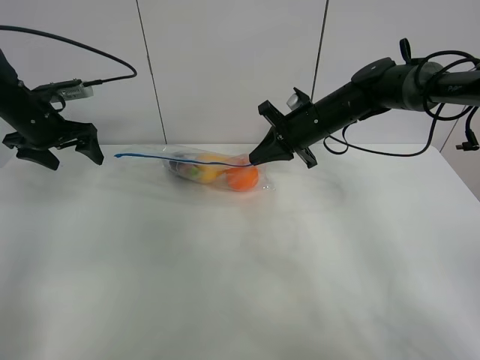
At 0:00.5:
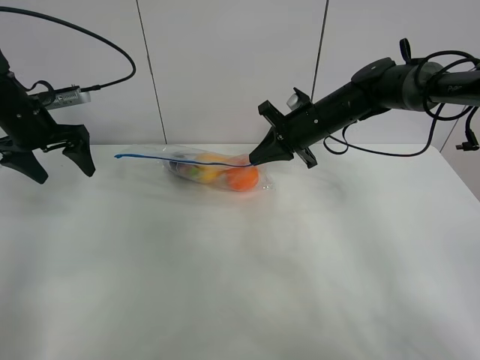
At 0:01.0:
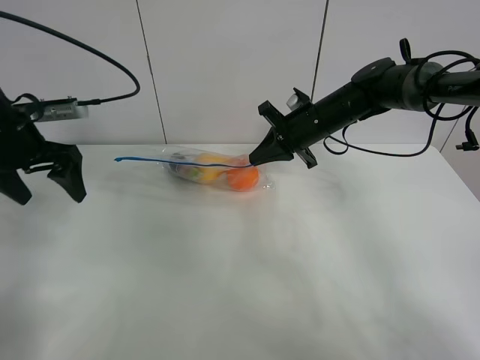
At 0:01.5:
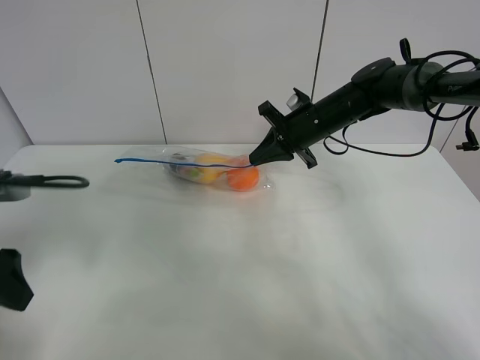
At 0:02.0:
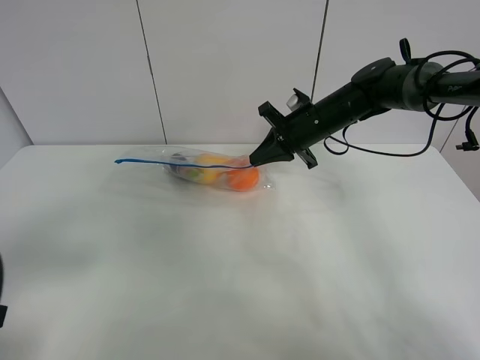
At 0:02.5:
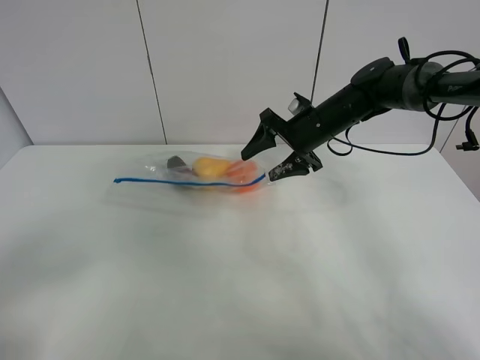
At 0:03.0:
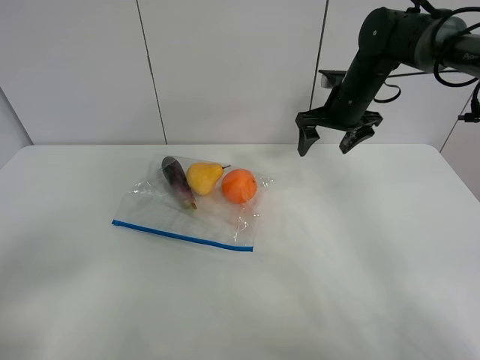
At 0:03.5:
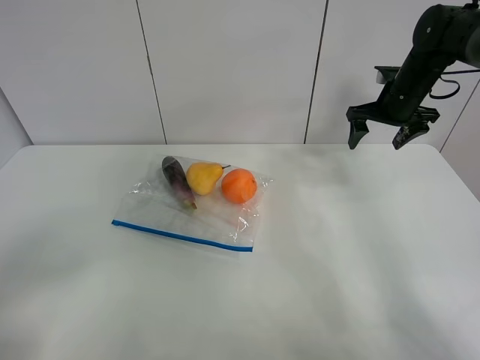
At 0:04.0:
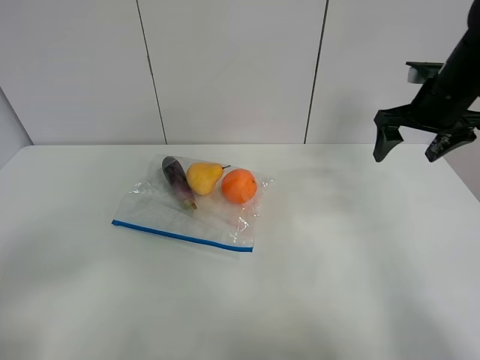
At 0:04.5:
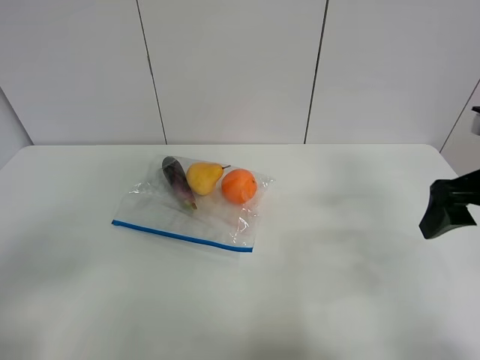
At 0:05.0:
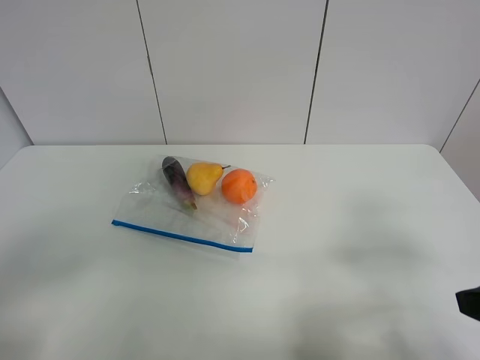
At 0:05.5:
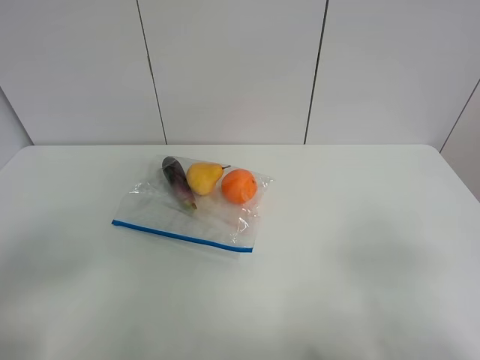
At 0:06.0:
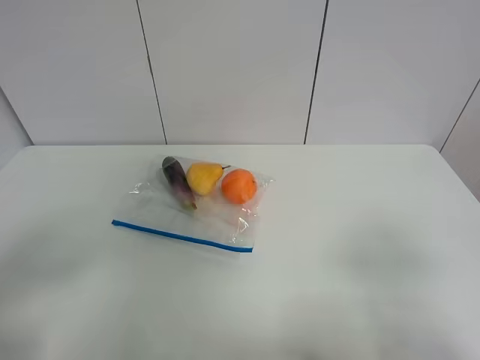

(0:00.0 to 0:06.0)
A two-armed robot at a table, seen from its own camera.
0:00.0 - 0:02.0: The left gripper moves backward, about 35 cm.
0:02.0 - 0:04.0: The left gripper goes about 5 cm backward. The right gripper travels to the right, upward and backward by roughly 20 cm, and opens its fingers.
0:04.0 - 0:06.0: The right gripper goes approximately 35 cm backward.

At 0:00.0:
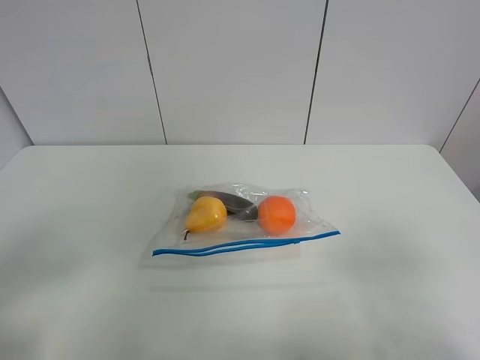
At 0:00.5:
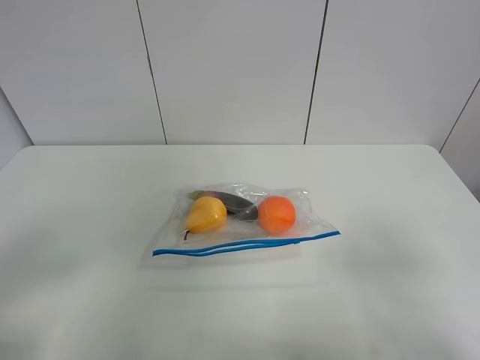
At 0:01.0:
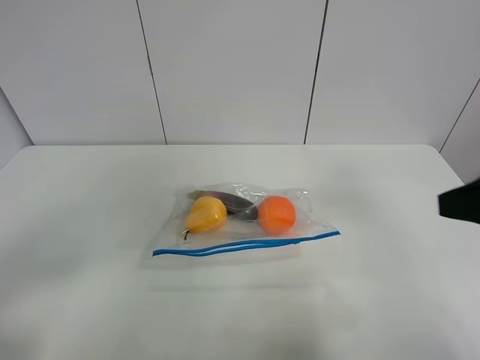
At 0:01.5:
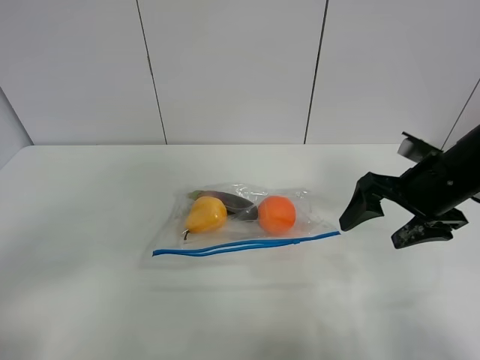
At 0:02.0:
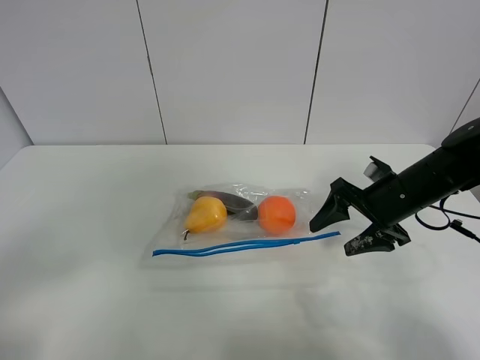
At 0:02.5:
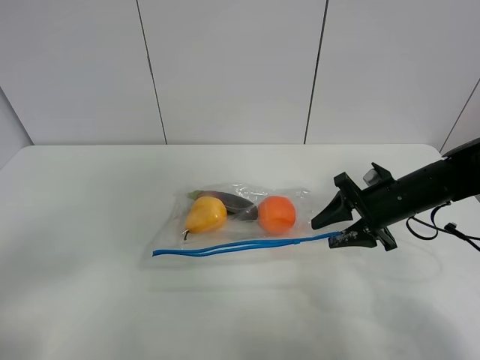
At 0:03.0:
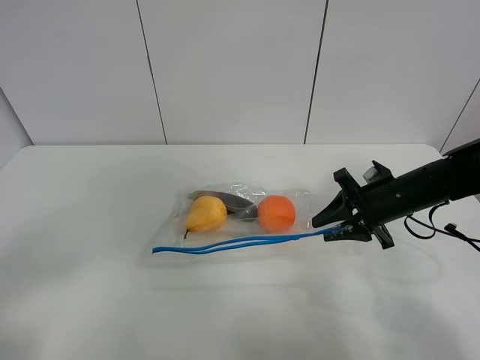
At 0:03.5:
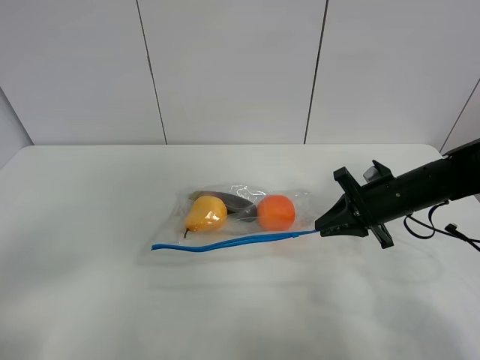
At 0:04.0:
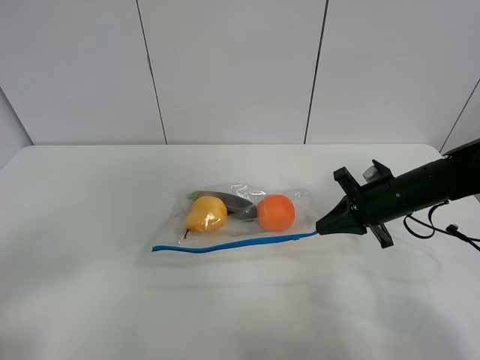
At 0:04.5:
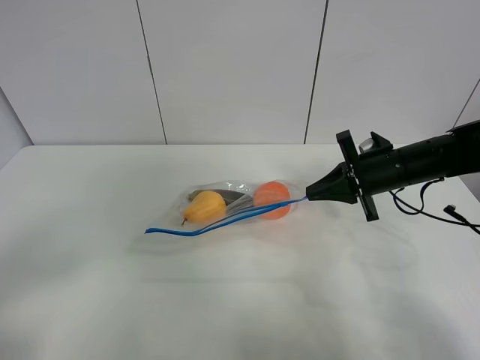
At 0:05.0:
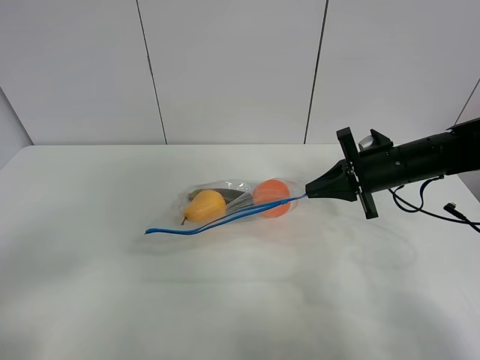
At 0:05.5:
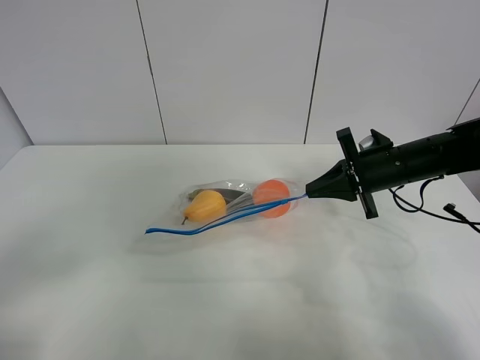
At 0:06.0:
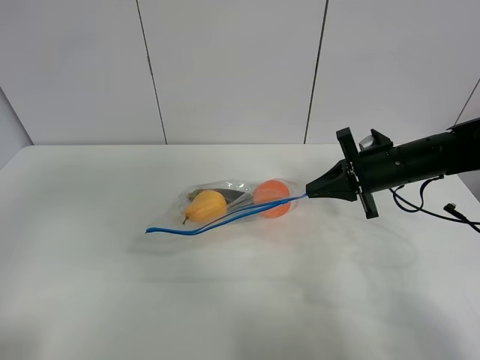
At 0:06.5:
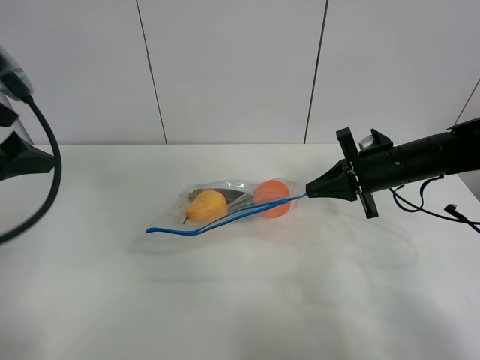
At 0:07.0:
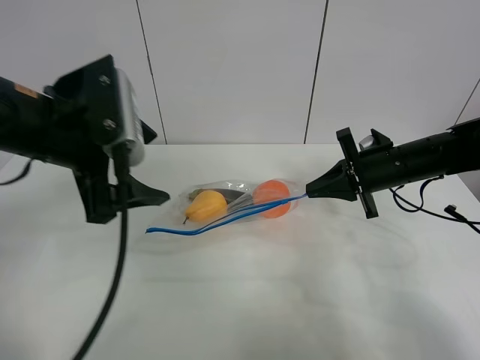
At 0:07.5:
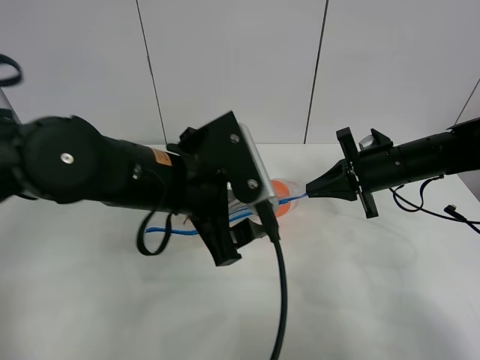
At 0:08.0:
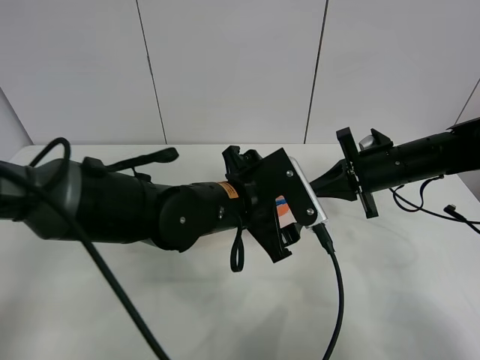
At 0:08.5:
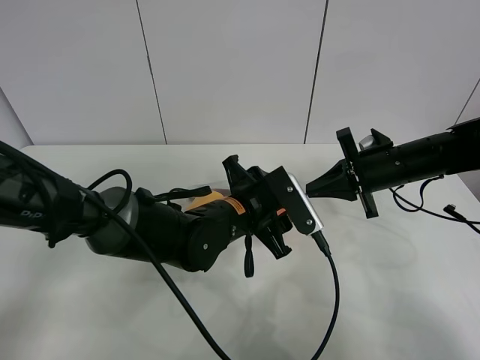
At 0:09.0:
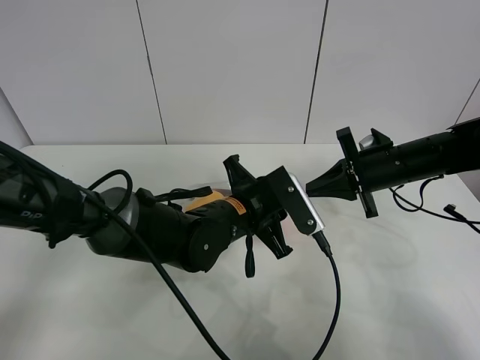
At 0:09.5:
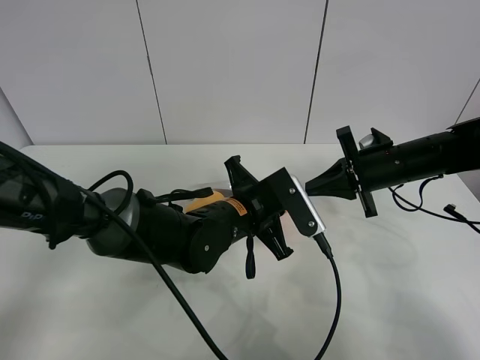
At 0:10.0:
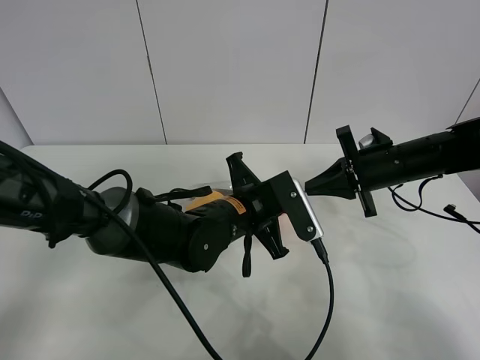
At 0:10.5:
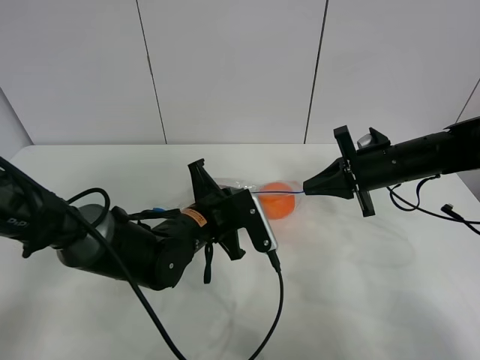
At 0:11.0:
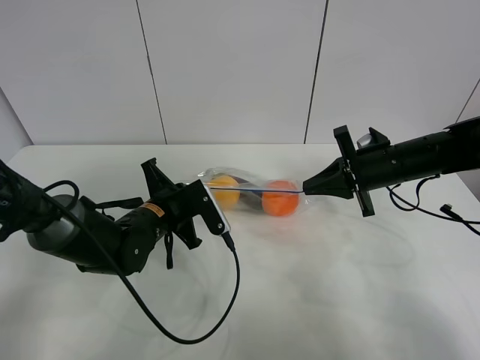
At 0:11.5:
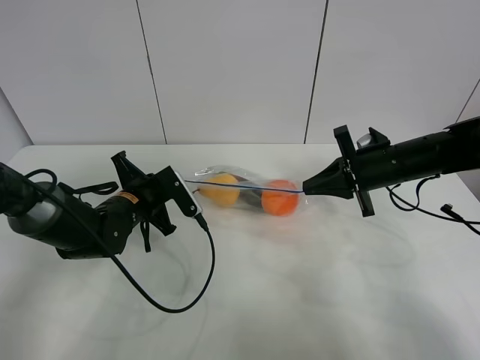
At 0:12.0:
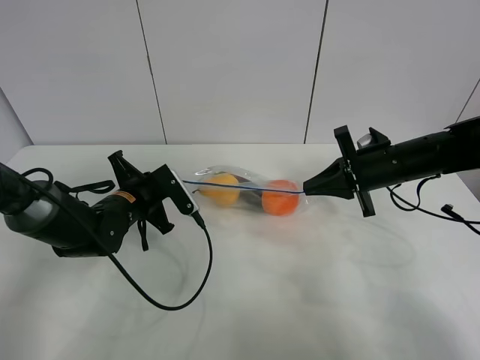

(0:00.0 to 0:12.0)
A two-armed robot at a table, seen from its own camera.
Step, 0:00.0 - 0:03.5: Grasp the fruit bag with right gripper.
Step, 0:04.0 - 0:04.5: Lift the fruit bag with your right gripper.
0:00.0 - 0:02.0: The right gripper heads forward, covering about 30 cm.
0:02.0 - 0:04.0: The right gripper closes its fingers.
0:04.0 - 0:06.0: The left gripper goes approximately 15 cm upward and forward.
0:06.0 - 0:08.0: The left gripper goes about 40 cm to the right, downward and forward.
0:08.0 - 0:10.0: The left gripper closes its fingers.
0:10.0 - 0:12.0: The left gripper goes about 15 cm to the left.

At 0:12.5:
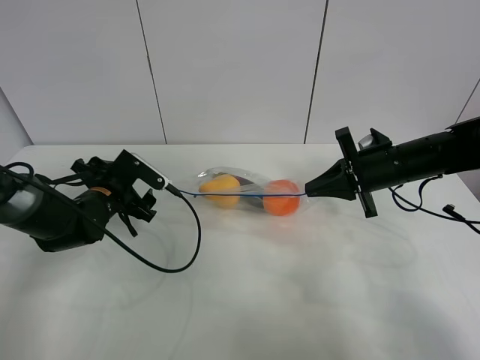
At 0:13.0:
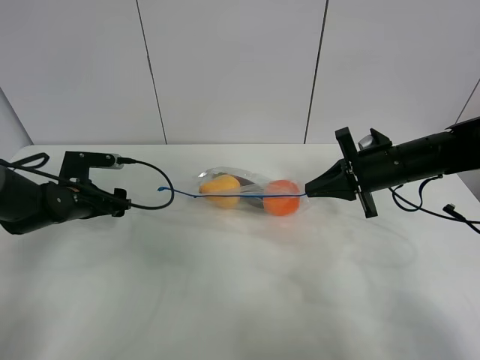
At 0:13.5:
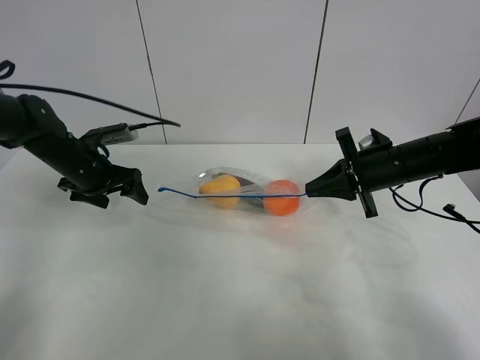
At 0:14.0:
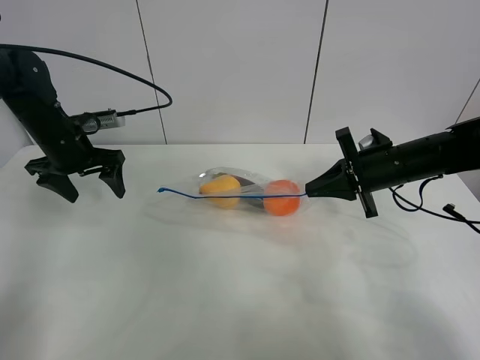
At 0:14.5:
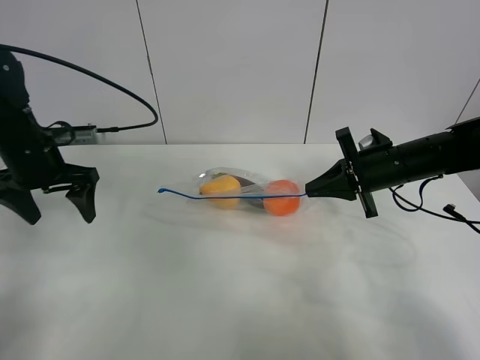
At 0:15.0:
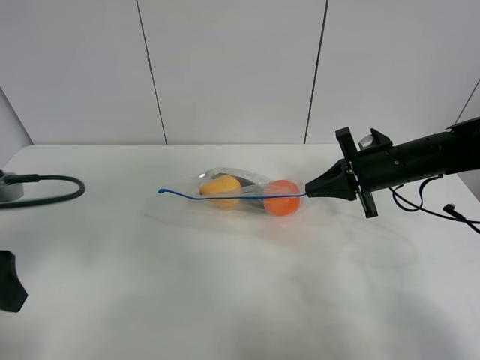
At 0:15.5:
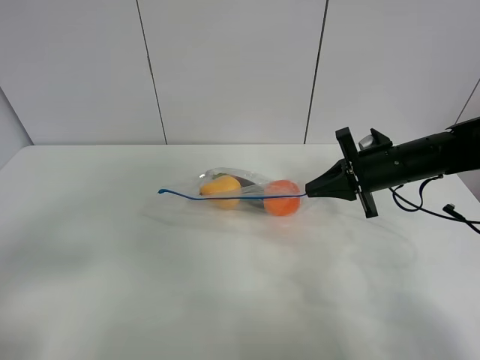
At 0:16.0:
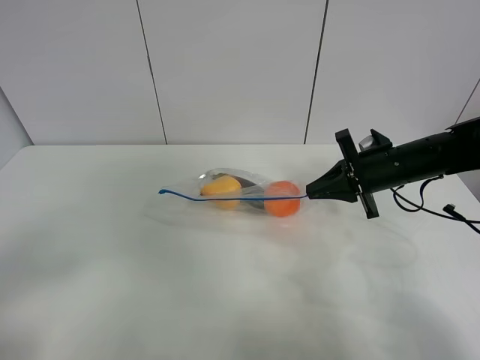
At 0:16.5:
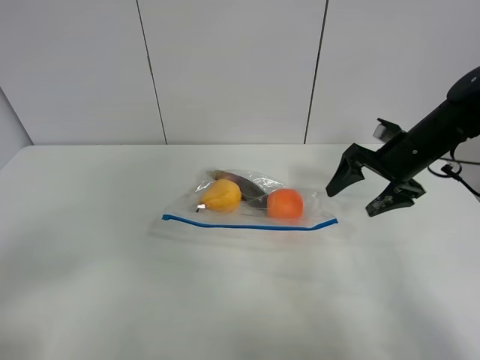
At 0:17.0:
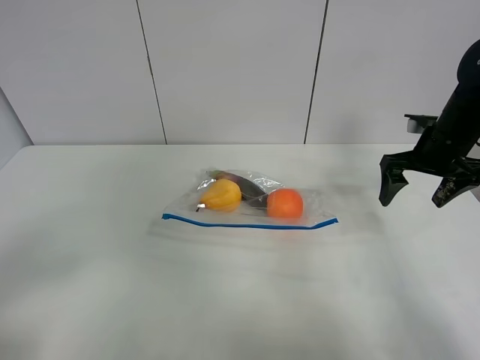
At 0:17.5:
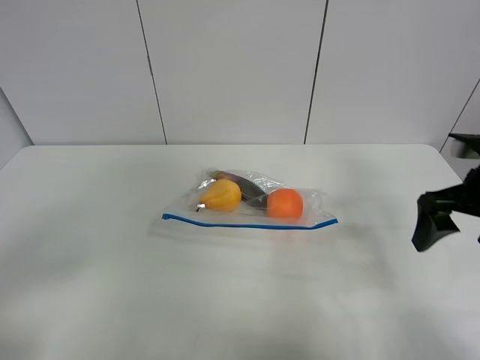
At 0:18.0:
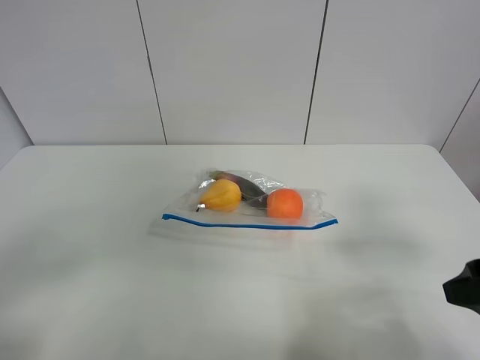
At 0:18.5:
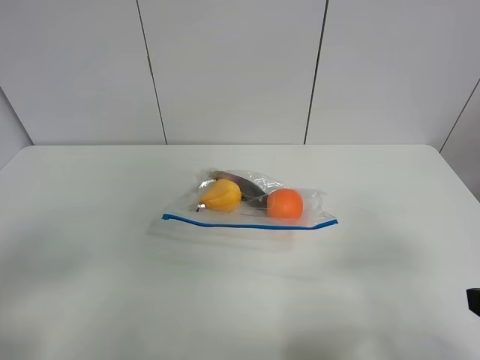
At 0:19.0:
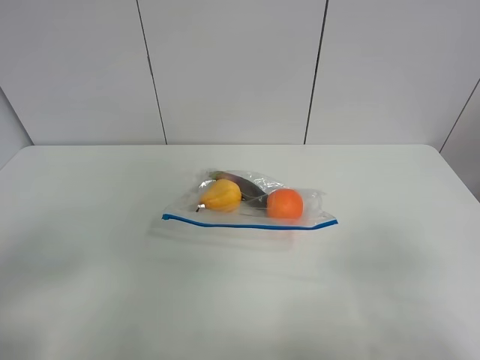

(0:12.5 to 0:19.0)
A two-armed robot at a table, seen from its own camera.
0:12.5 - 0:14.5: The left gripper shifts roughly 15 cm upward and to the left.
0:14.5 - 0:17.0: The left gripper moves backward, roughly 30 cm; the right gripper is displaced to the right by roughly 5 cm, and opens.
0:17.0 - 0:19.0: The right gripper is displaced backward by some 35 cm.

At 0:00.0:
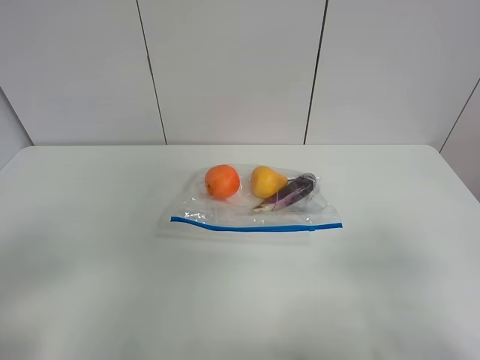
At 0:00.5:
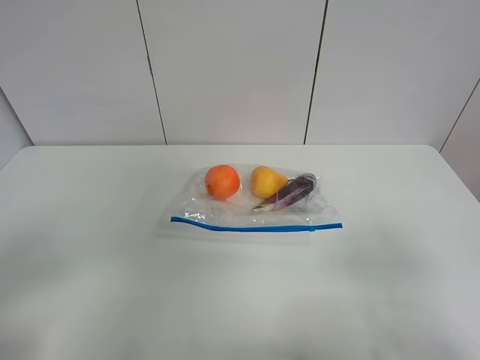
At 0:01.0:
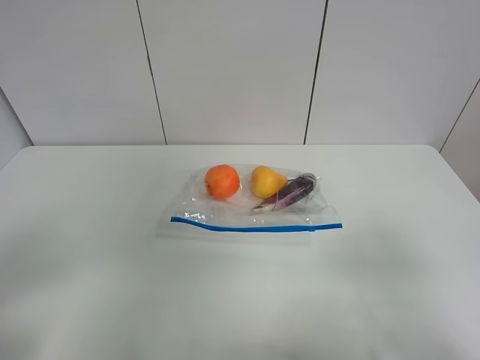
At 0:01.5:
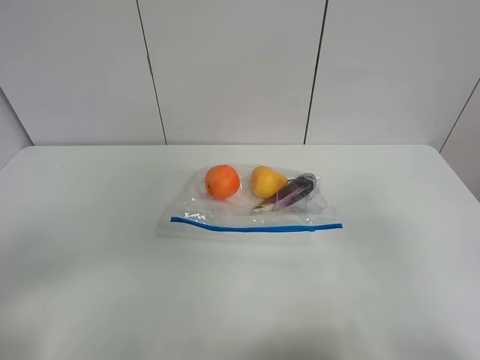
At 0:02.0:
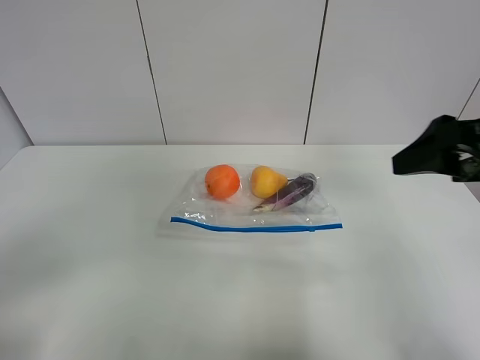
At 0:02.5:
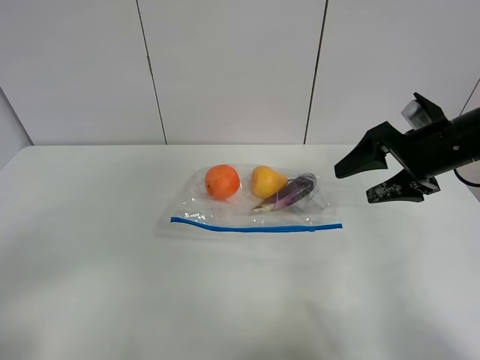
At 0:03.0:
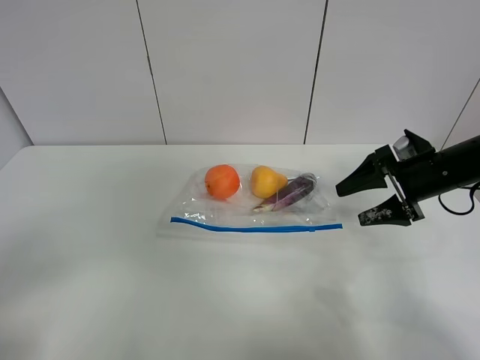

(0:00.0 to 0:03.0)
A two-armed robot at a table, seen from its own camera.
0:01.5 - 0:03.0: The right gripper heads forward and downward, covering about 30 cm.
